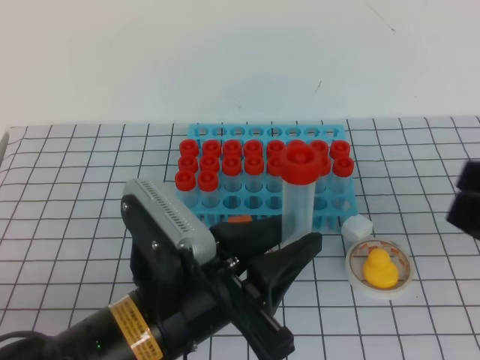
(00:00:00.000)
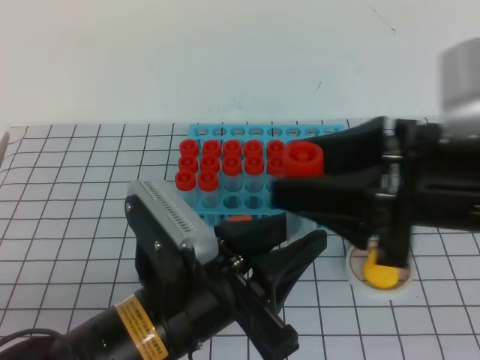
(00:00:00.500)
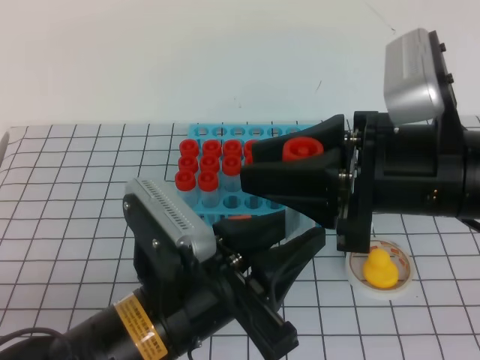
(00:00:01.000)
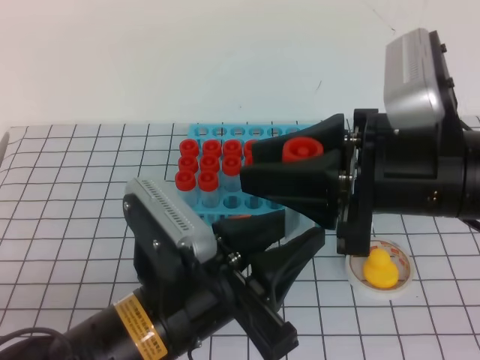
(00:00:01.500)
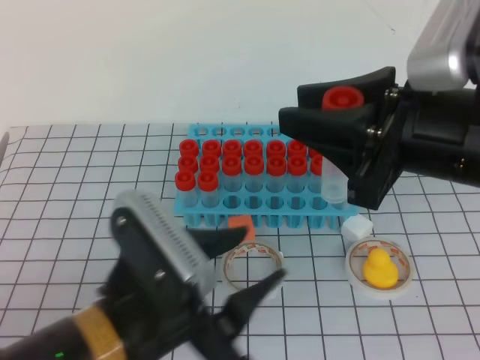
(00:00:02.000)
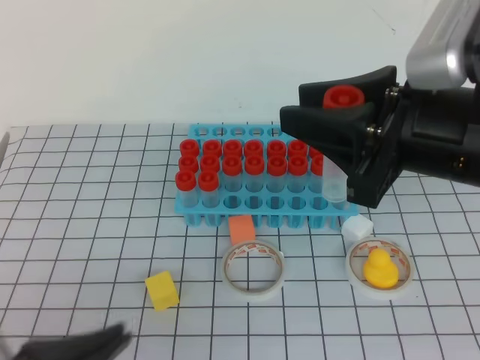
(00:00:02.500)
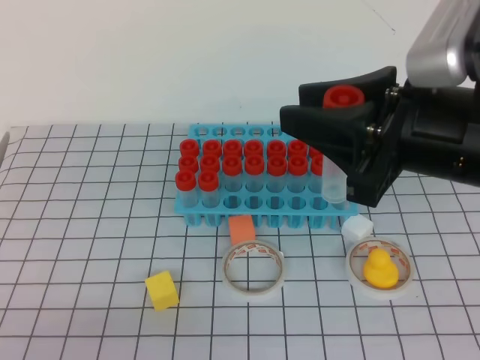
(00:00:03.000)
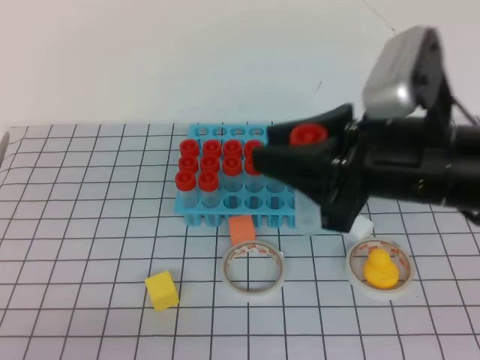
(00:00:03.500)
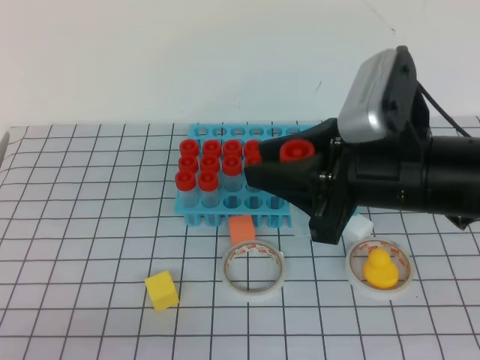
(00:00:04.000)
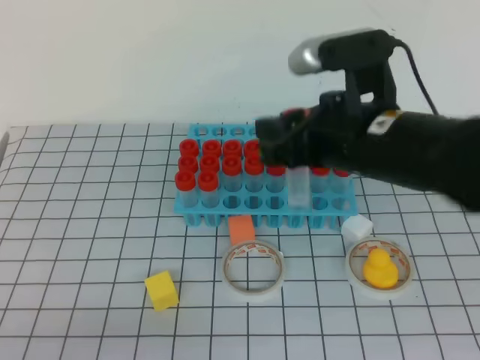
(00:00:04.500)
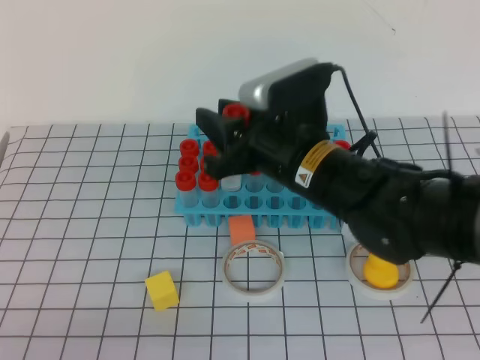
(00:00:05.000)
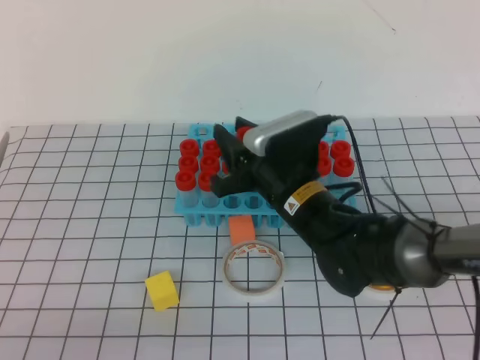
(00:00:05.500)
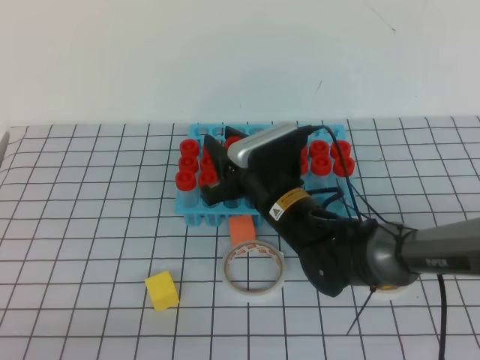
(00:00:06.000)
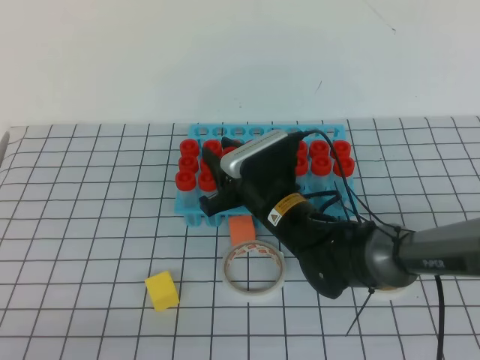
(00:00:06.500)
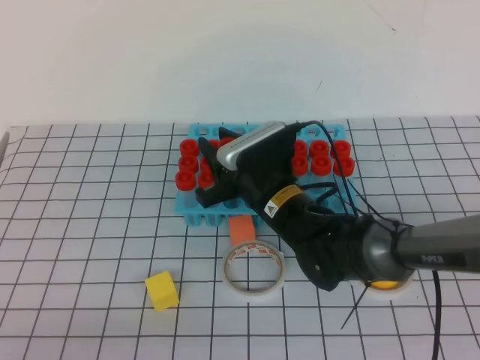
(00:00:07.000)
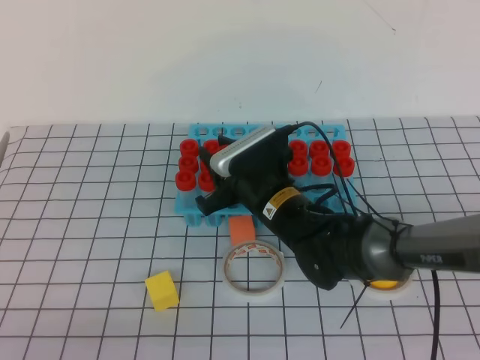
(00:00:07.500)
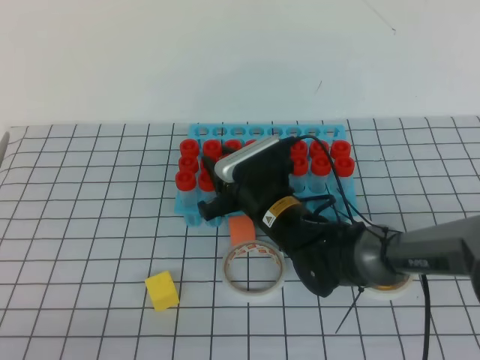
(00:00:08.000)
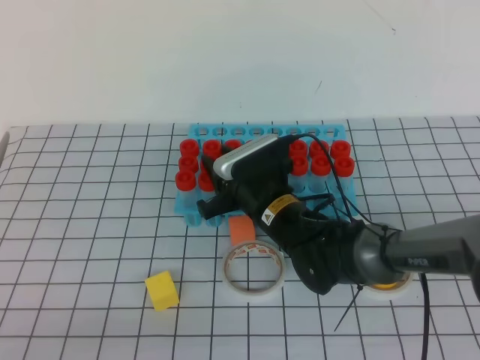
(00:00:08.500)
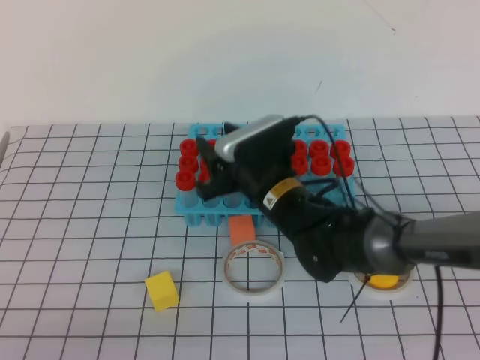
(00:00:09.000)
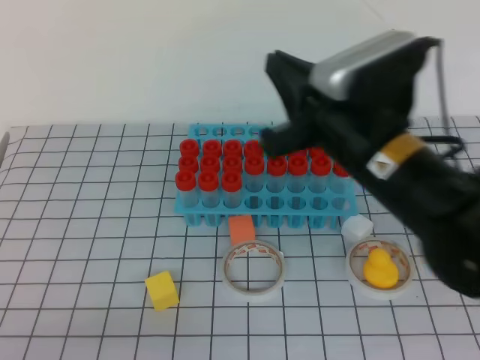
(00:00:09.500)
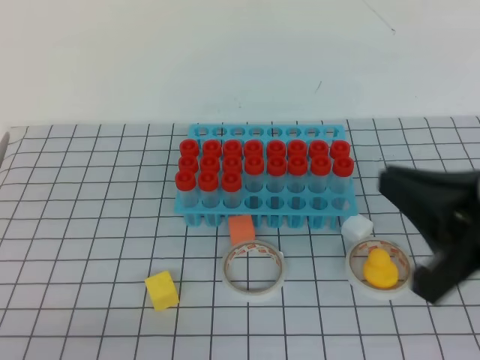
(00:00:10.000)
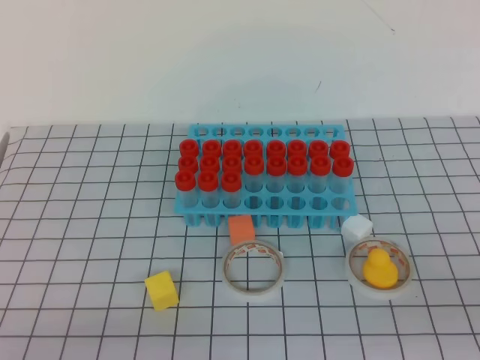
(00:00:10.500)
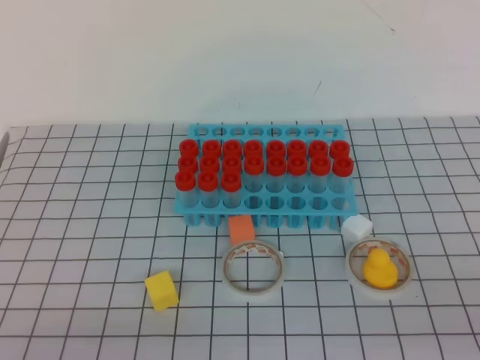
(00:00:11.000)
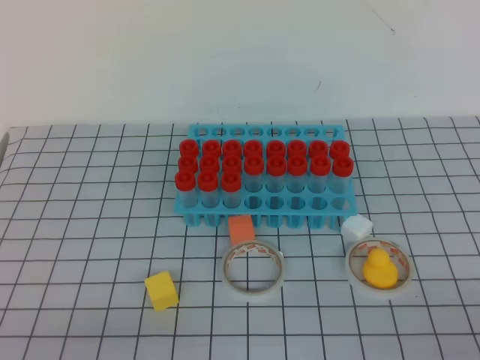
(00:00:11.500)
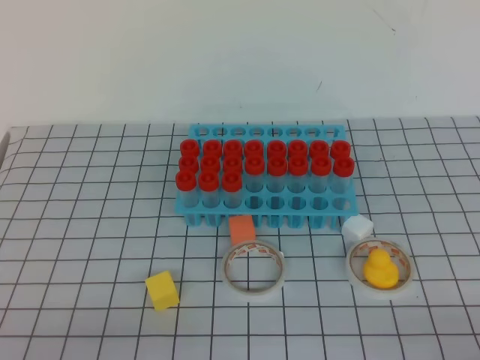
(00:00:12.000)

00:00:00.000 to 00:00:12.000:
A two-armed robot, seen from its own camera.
00:00:00.000 to 00:00:02.000: The left gripper opens its fingers. The right gripper goes roughly 15 cm to the left and forward, and closes.
00:00:02.000 to 00:00:04.000: The right gripper shifts by roughly 5 cm; the left gripper shifts roughly 15 cm to the left and backward, and closes up.
00:00:04.000 to 00:00:06.000: The right gripper travels downward, forward and to the left by about 20 cm.
00:00:06.000 to 00:00:08.000: The grippers move only a little.
00:00:08.000 to 00:00:10.000: The right gripper heads backward, upward and to the right, covering approximately 30 cm, and closes up.
00:00:10.000 to 00:00:12.000: The right gripper moves to the right, downward and backward, some 25 cm.
